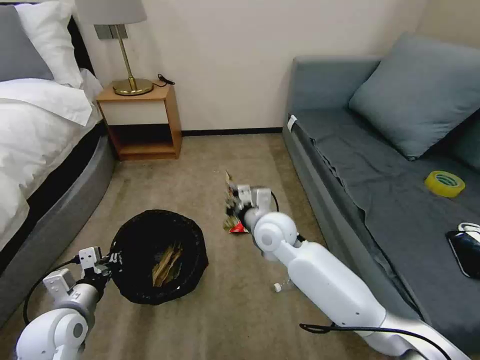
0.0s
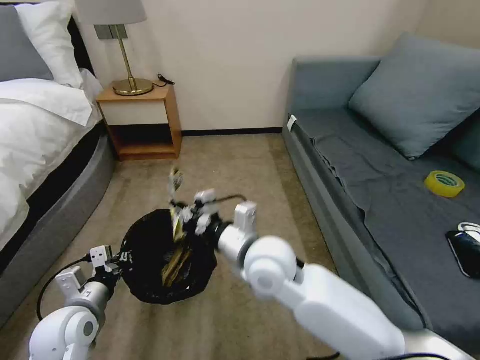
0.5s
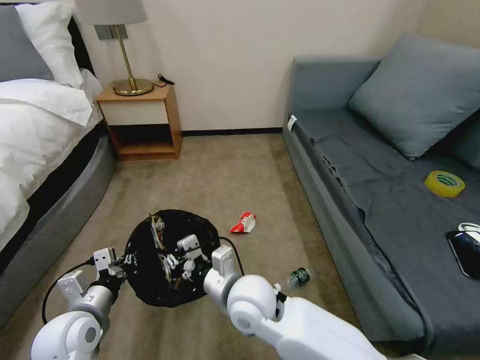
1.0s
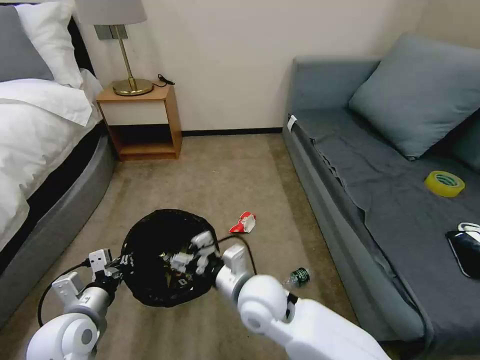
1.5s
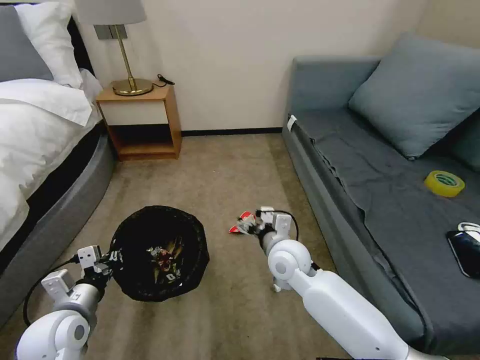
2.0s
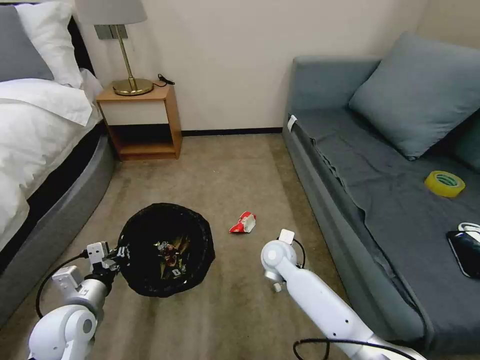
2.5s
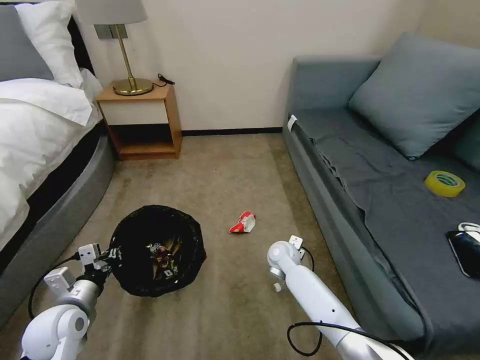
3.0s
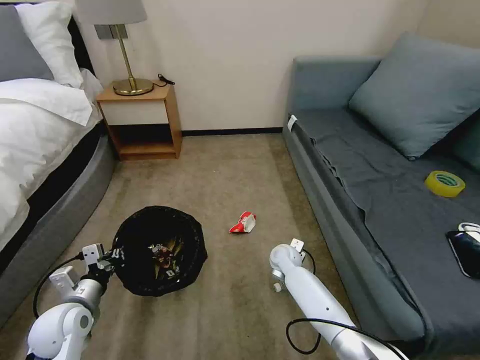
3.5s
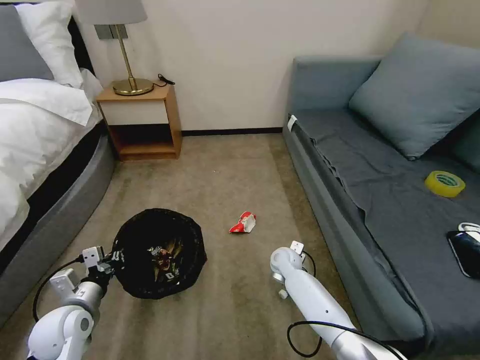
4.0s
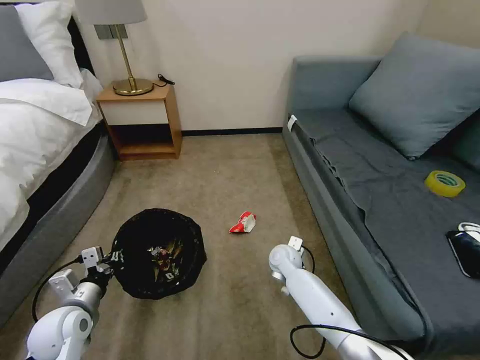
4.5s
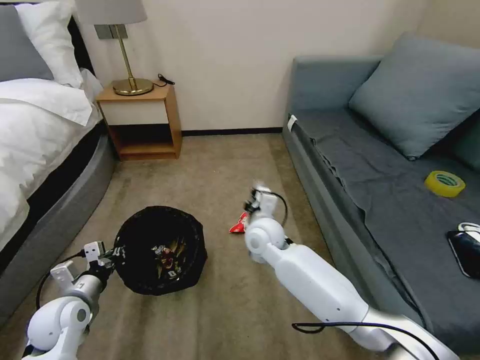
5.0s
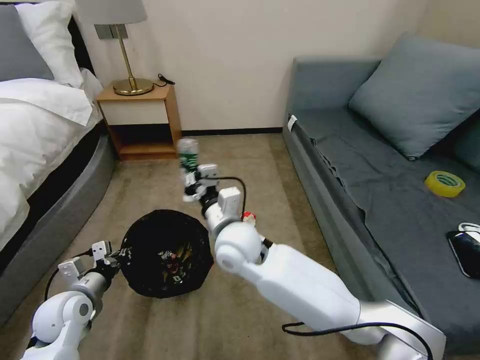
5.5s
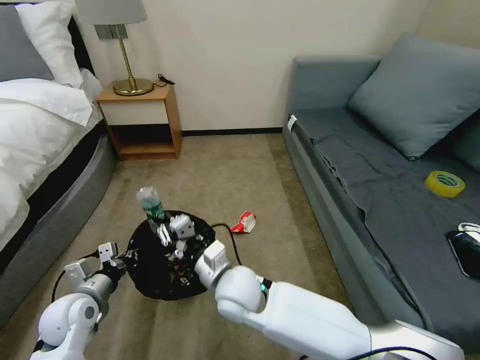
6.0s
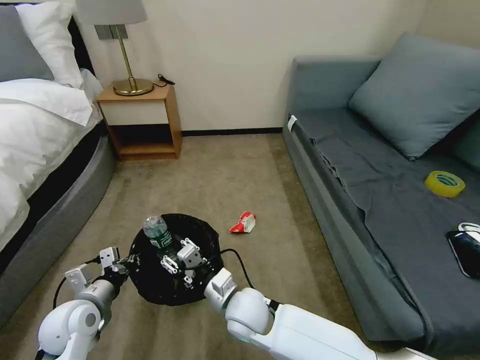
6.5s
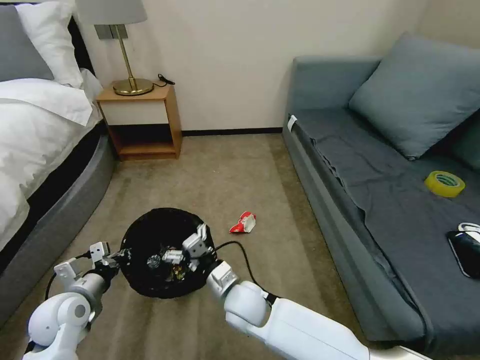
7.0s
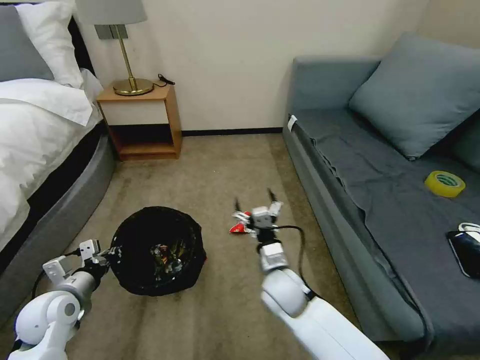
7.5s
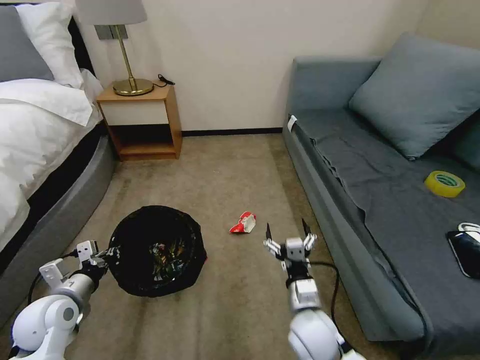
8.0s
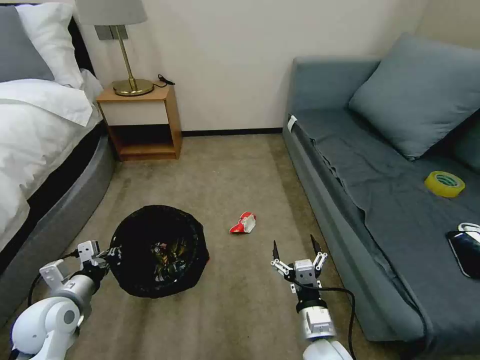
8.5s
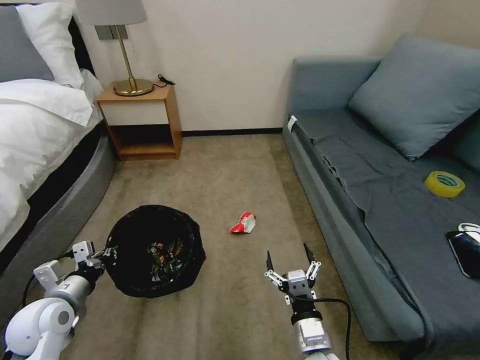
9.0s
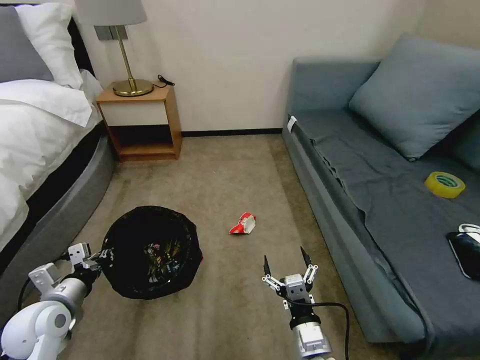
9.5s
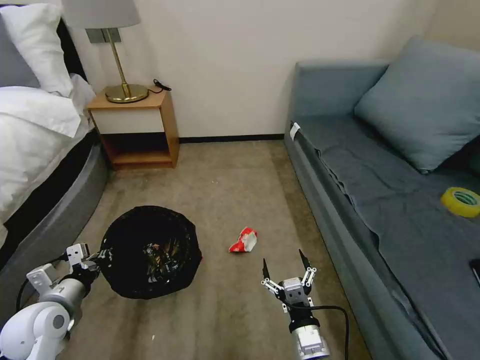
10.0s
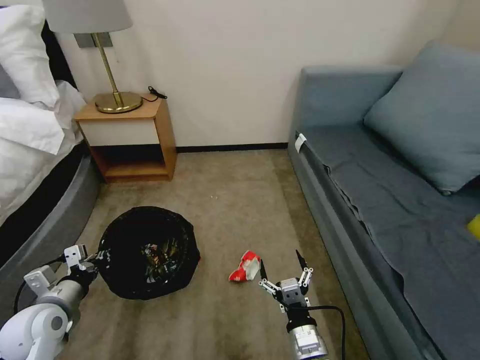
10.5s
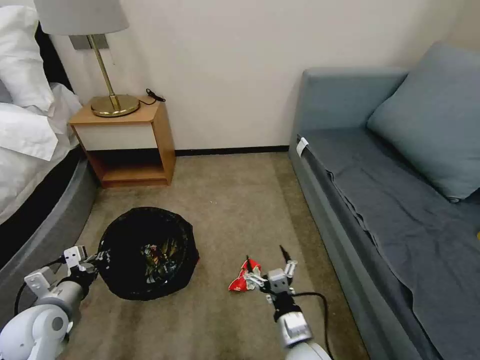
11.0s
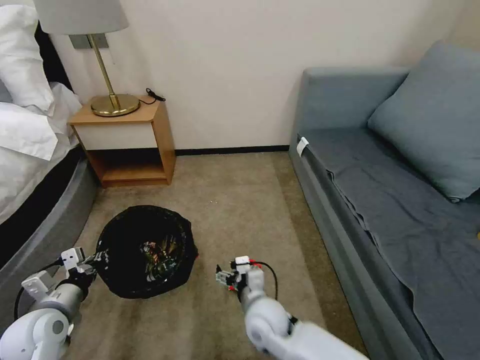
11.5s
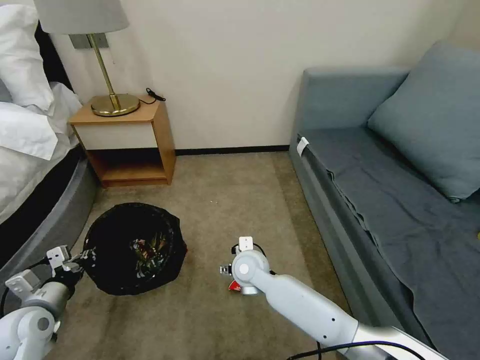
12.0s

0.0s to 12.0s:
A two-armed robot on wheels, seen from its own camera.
Task of the whole recording: Pick up the trash bin, then pick up the garbage on the floor and place it into the trash bin.
0.0s to 2.0s: The right gripper travels backward and back again, roughly 15 cm each way, and opens its fingers.
2.0s to 4.0s: The left gripper ends up some 5 cm from where it was. Meanwhile the right gripper heads downward and forward, covering roughly 20 cm, and closes its fingers.
4.0s to 6.0s: The right gripper heads upward, backward and to the left, covering approximately 30 cm, and closes its fingers.
6.0s to 8.0s: The right gripper is displaced to the right, downward and backward by approximately 20 cm, and opens up.
8.0s to 10.0s: The right gripper travels backward by approximately 10 cm.
10.0s to 12.0s: The right gripper heads forward and to the left, covering about 25 cm.

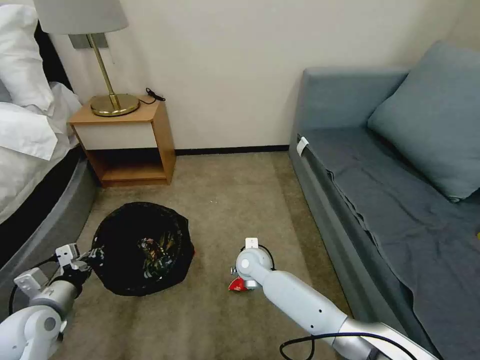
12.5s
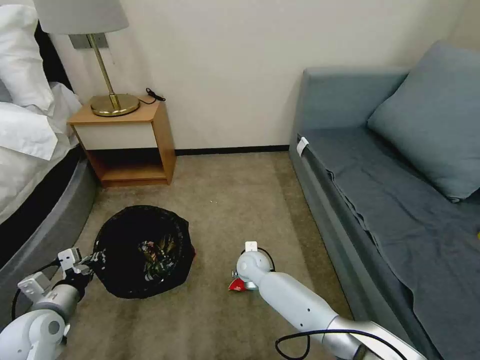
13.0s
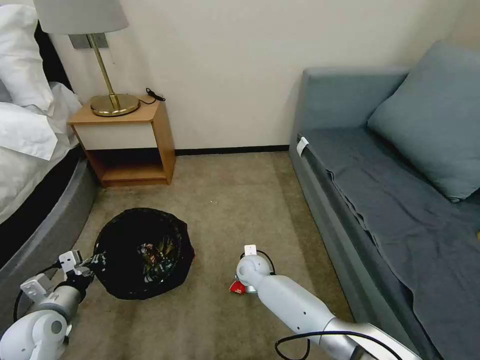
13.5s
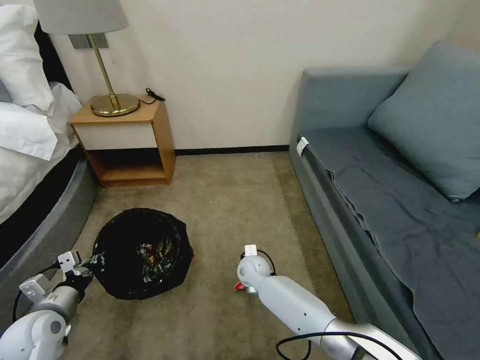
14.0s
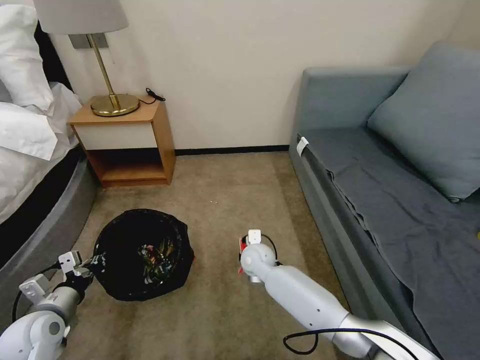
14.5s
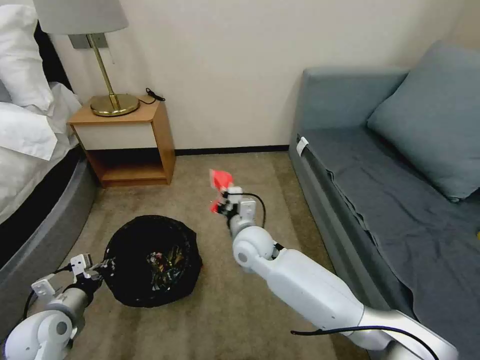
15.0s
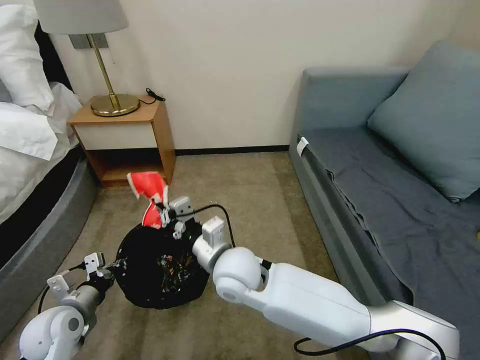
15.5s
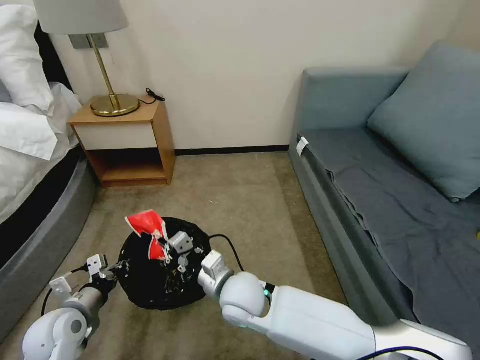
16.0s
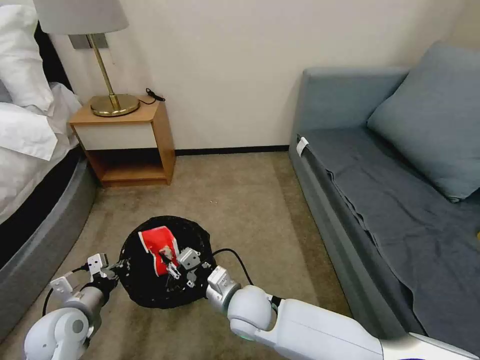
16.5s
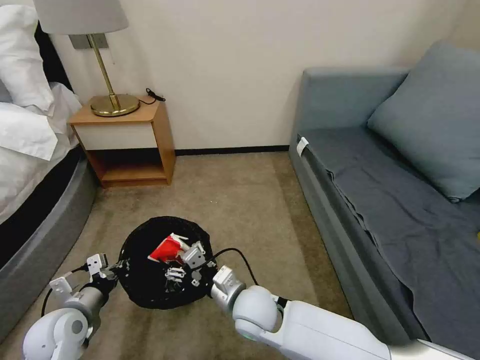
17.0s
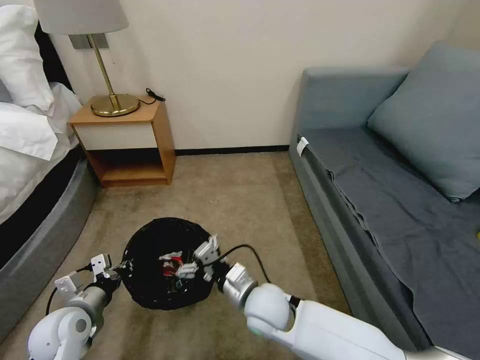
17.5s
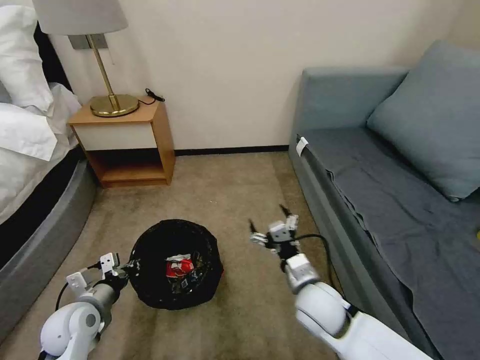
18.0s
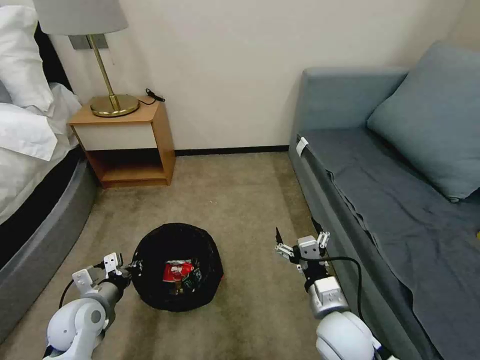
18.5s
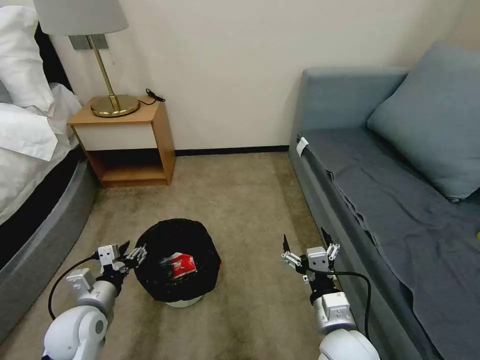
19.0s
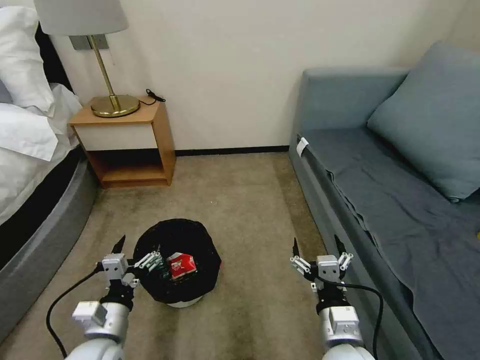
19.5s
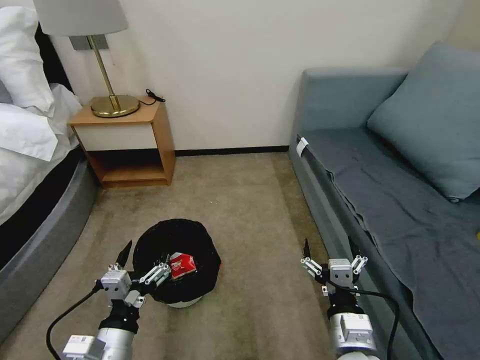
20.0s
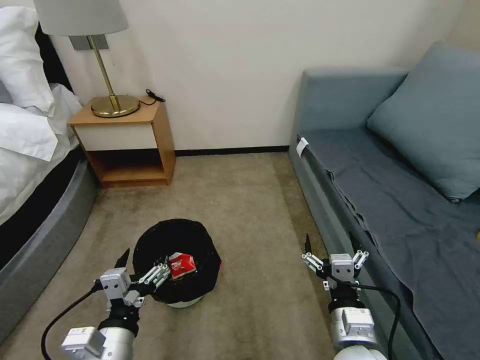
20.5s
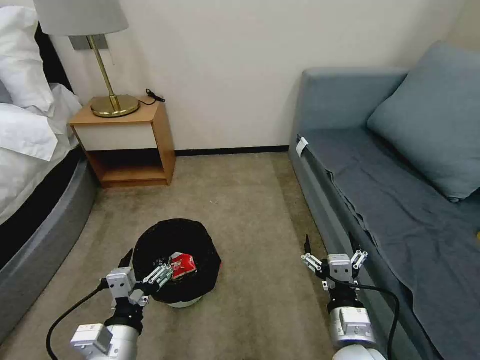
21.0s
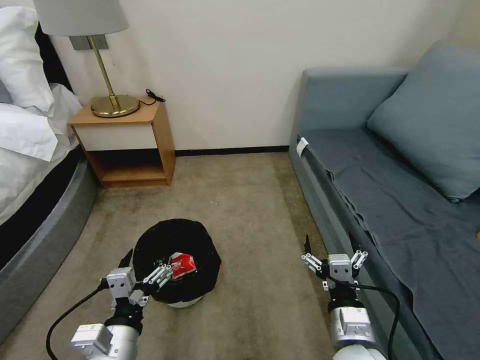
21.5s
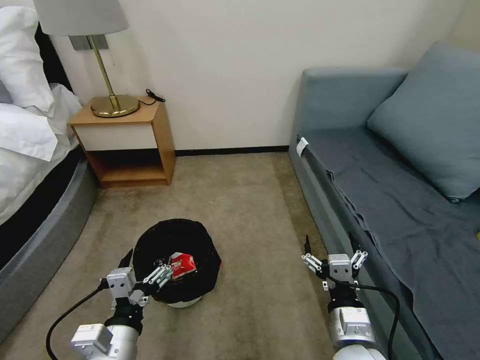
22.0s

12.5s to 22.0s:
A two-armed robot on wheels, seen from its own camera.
Task of the whole recording: Pick up the trash bin, then pick up the garbage on the floor and place it into the trash bin.
12.5s to 14.5s: The right gripper closes.
14.5s to 16.5s: The right gripper travels backward by about 15 cm.
16.5s to 18.0s: The right gripper shifts about 15 cm to the right, and opens up.
18.0s to 20.0s: The left gripper travels backward and to the right by approximately 15 cm, and opens its fingers. The right gripper goes roughly 15 cm backward.
20.0s to 22.0s: The grippers stay close to where they were, moving slightly.

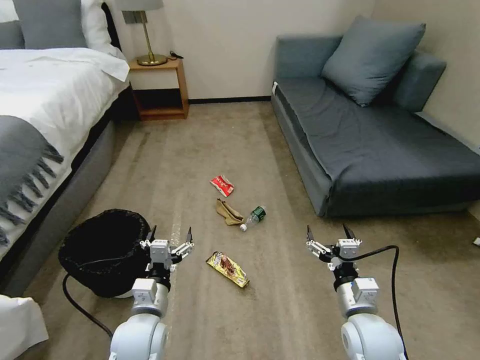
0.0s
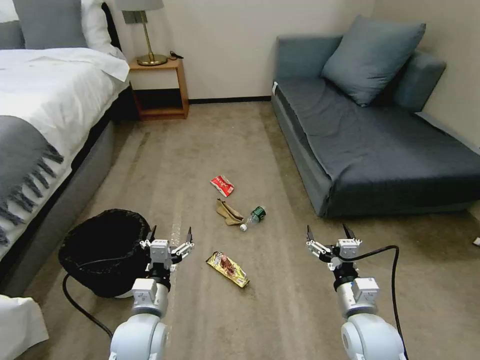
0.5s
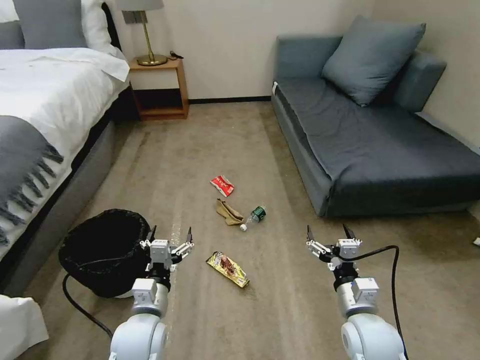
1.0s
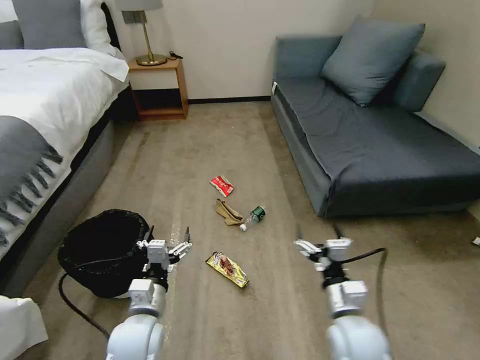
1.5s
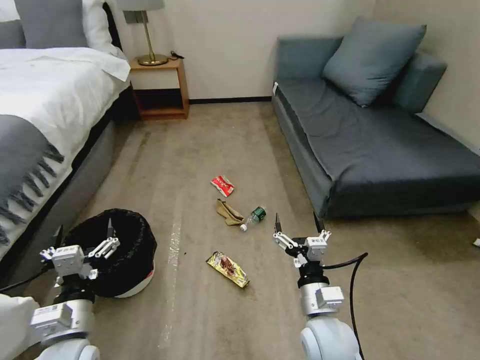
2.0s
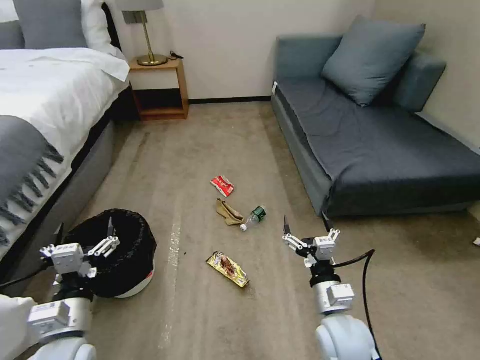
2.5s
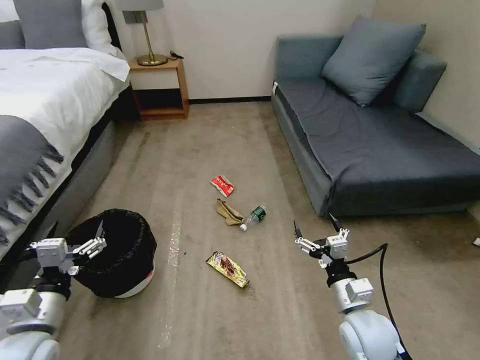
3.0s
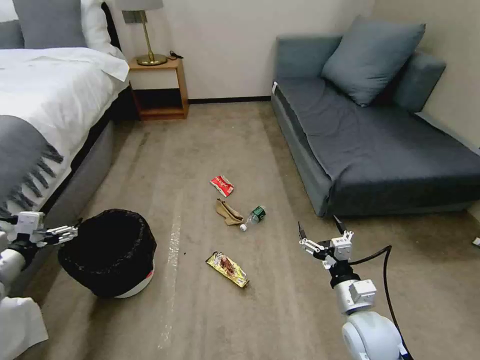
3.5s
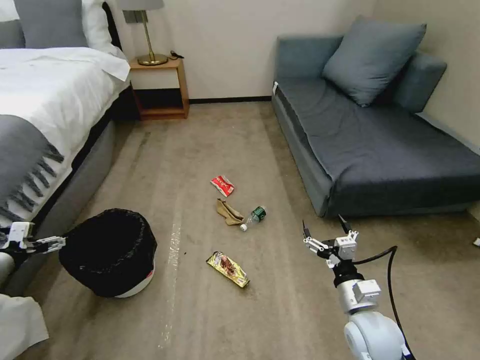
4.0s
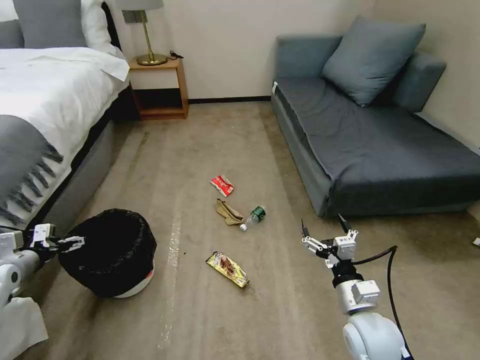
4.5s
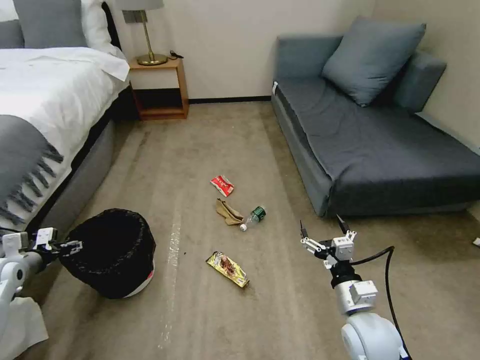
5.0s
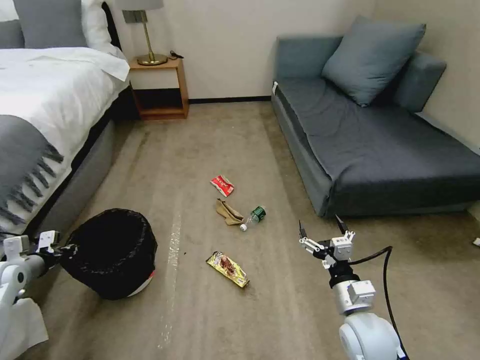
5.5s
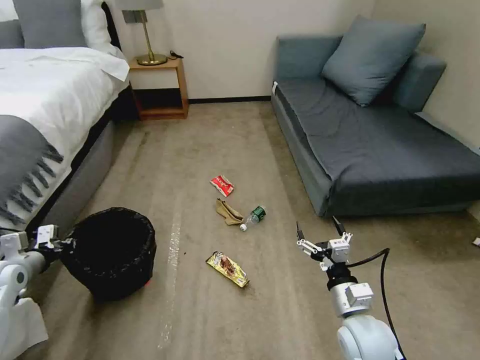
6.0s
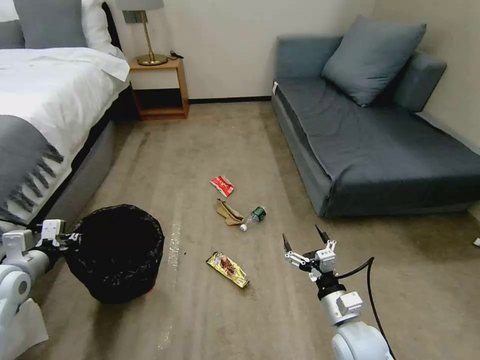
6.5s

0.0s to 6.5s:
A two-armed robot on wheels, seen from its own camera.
Task of the whole recording: Pick up the trash bin, then pick up the garbage on the floor and place it into the trash bin.
2.0s to 4.5s: The right gripper moves to the right, some 10 cm. The left gripper heads to the left and forward, covering roughly 30 cm.
4.5s to 6.5s: The left gripper heads to the right and upward, covering roughly 10 cm, and closes.
